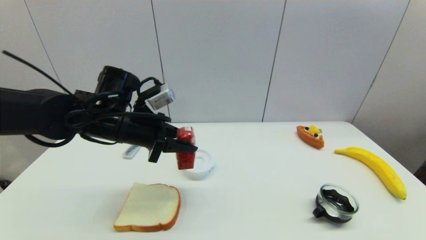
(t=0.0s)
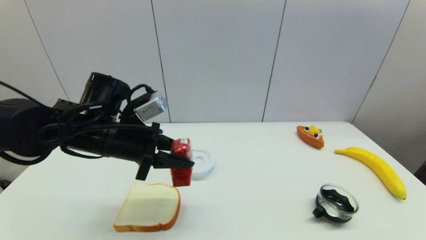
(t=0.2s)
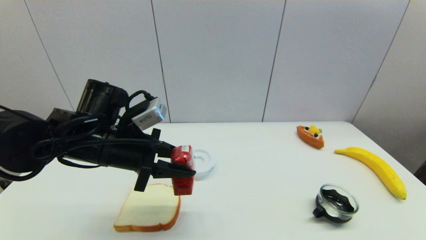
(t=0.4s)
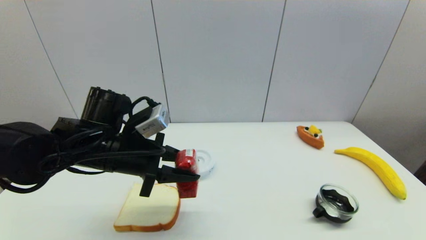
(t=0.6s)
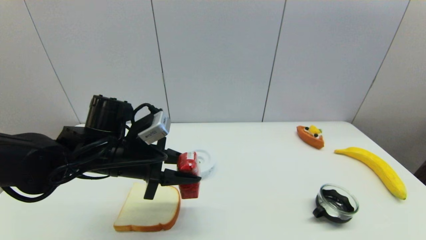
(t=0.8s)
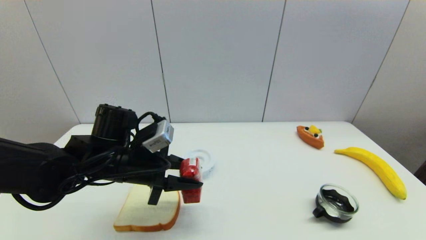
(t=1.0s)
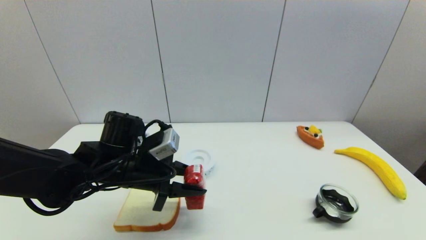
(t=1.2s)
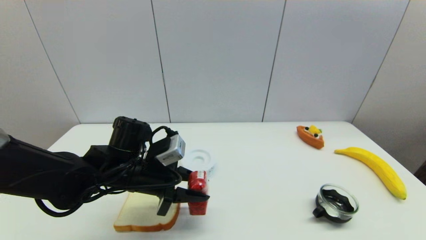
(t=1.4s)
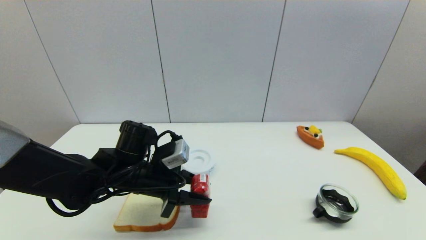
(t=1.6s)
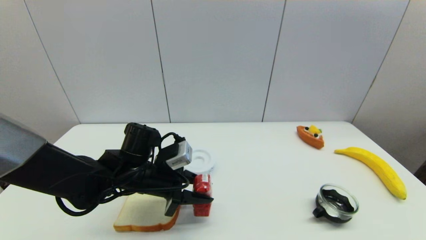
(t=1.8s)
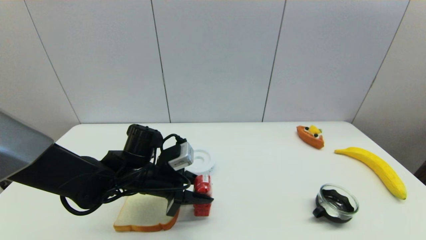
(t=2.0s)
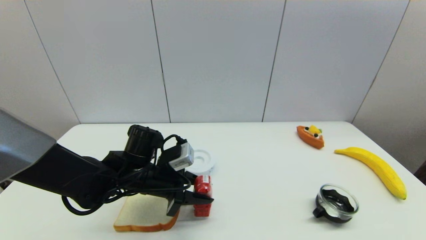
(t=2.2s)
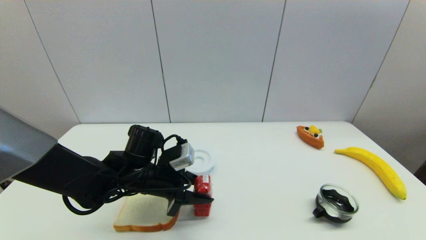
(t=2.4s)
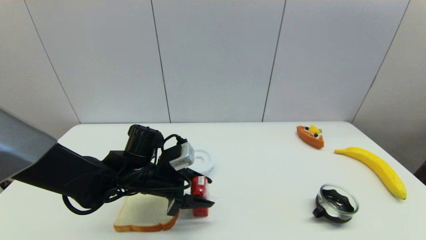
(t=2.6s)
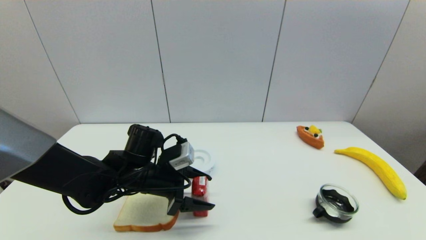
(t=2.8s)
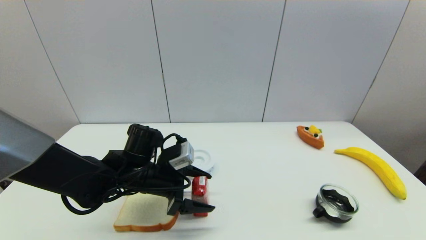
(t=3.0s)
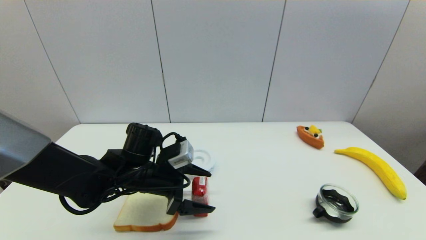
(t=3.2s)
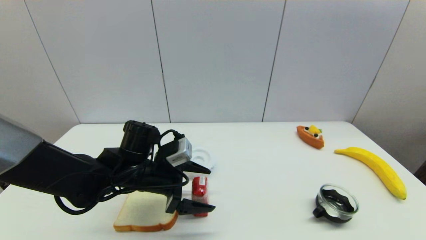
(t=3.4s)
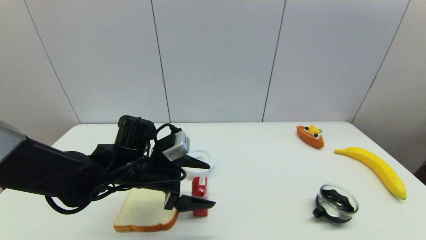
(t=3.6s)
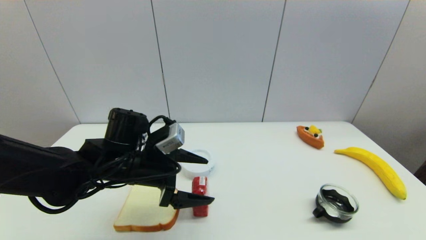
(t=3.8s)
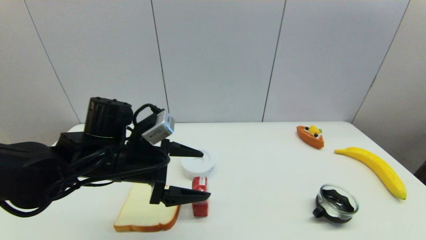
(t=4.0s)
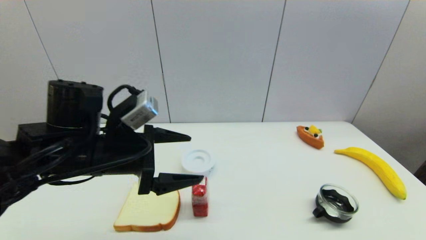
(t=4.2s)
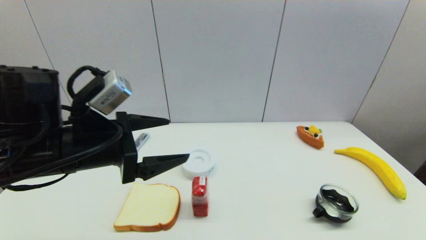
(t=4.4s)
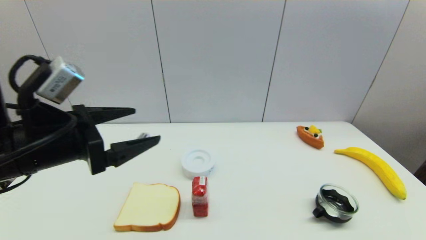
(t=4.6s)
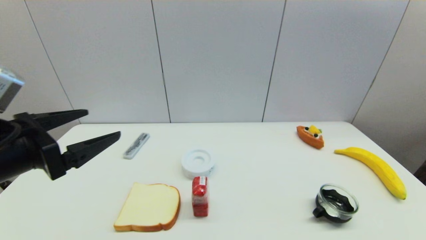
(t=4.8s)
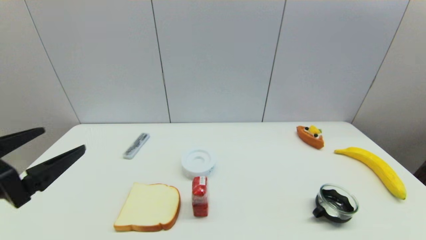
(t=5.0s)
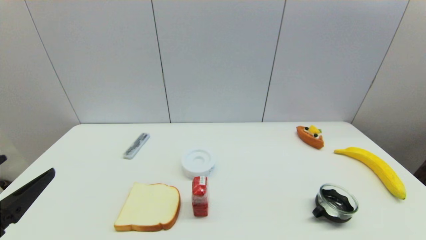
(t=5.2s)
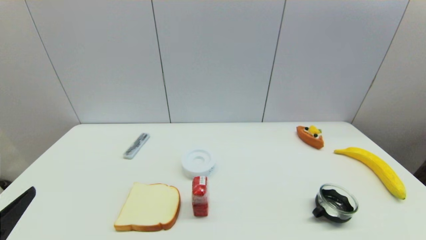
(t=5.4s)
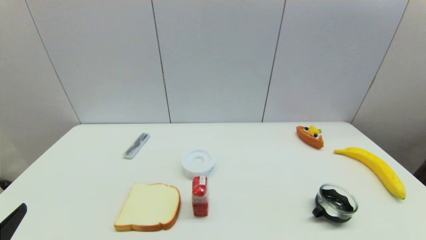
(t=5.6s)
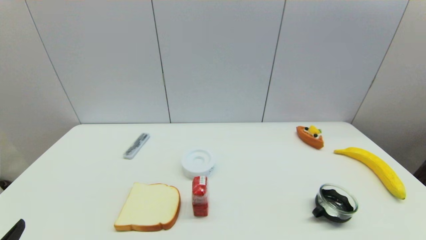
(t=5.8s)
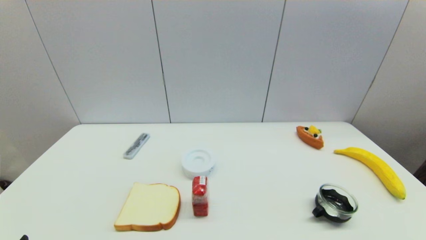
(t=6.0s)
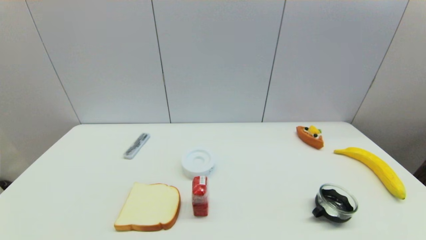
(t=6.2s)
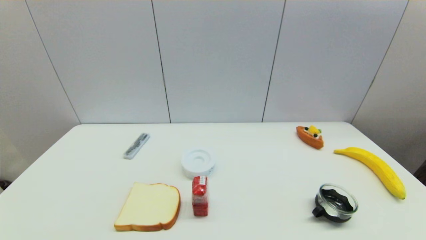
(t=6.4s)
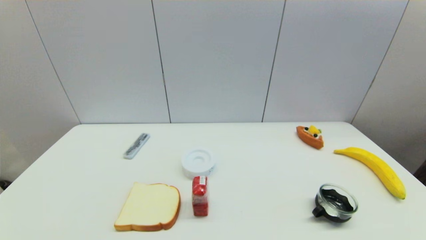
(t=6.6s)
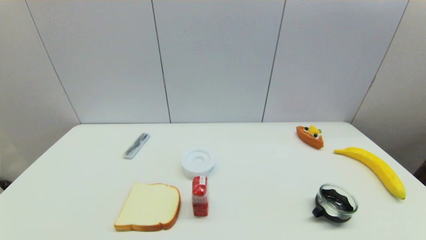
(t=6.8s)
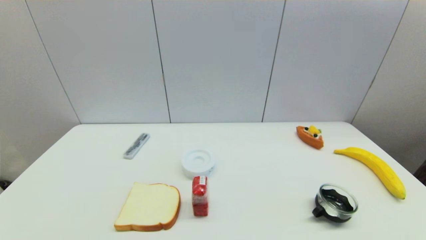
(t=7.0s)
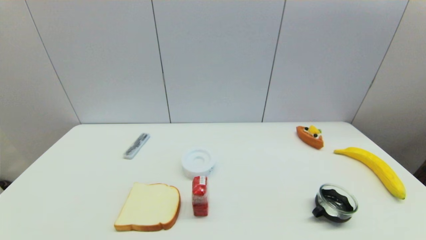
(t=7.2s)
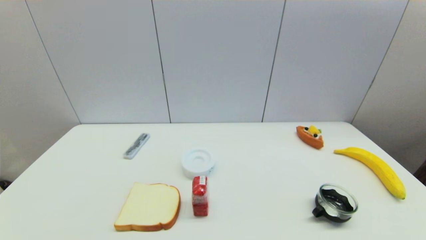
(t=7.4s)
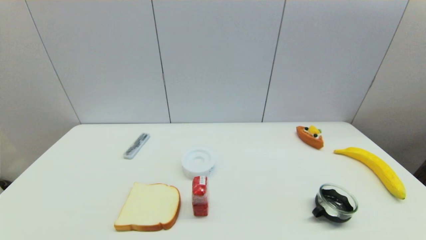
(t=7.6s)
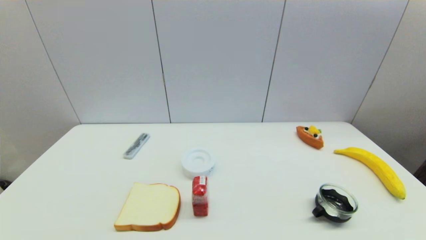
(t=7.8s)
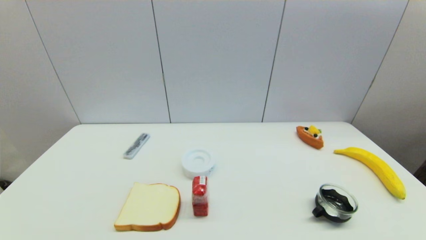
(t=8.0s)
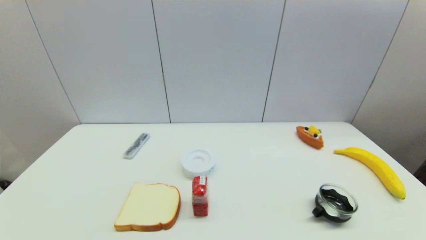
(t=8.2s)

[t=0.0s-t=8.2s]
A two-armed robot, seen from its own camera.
Step, t=0.0s to t=2.6s: Place the wangzai milk on the table with left gripper.
t=0.0s to t=1.6s: The left gripper goes about 10 cm downward.
t=1.6s to t=3.2s: The left gripper opens its fingers.
t=3.2s to t=5.0s: The left gripper goes about 25 cm backward, to the left and upward.
t=5.0s to t=6.6s: The left gripper shifts some 20 cm downward and backward.
t=6.6s to t=8.2s: Both grippers stay about where they are.
